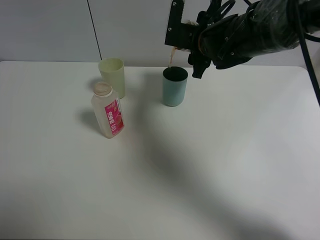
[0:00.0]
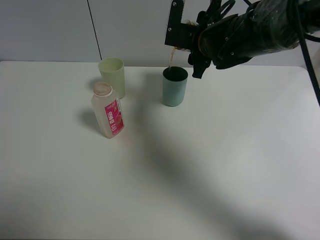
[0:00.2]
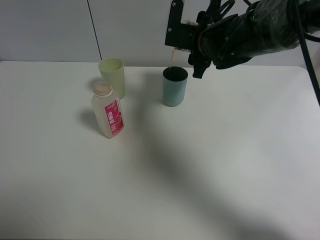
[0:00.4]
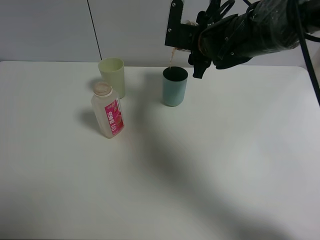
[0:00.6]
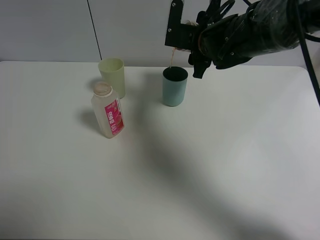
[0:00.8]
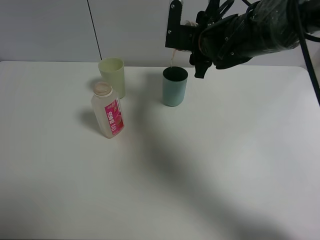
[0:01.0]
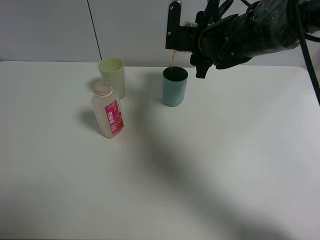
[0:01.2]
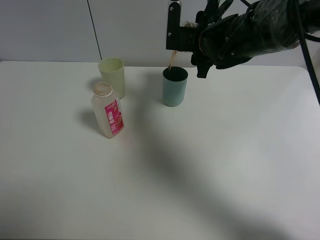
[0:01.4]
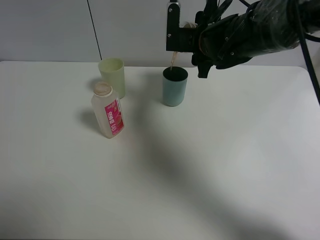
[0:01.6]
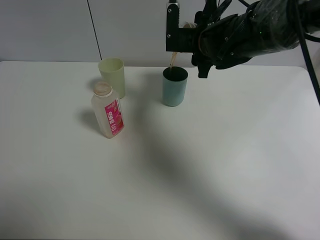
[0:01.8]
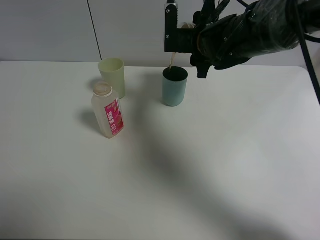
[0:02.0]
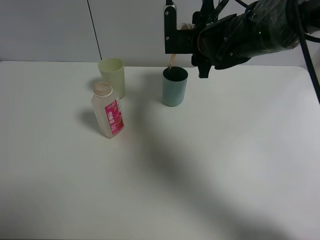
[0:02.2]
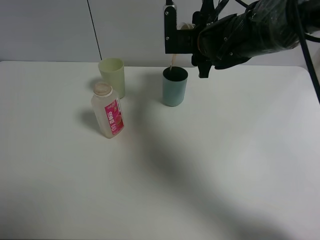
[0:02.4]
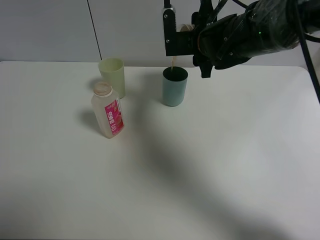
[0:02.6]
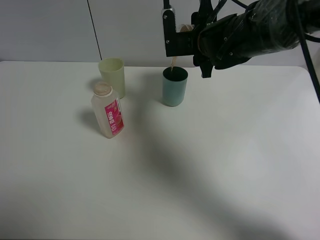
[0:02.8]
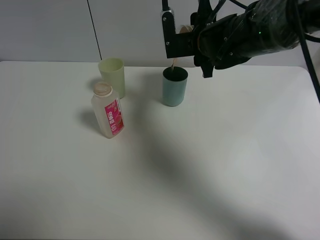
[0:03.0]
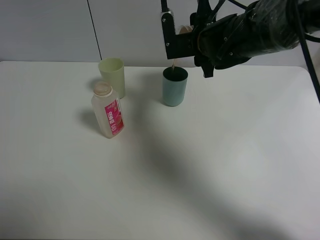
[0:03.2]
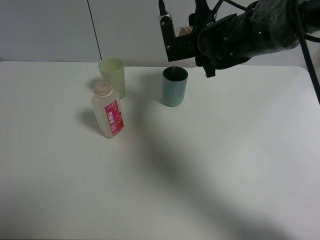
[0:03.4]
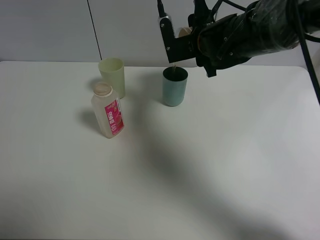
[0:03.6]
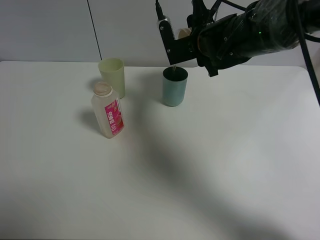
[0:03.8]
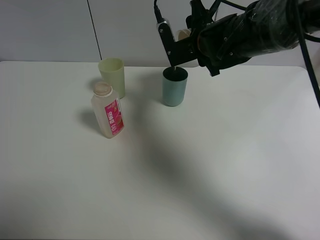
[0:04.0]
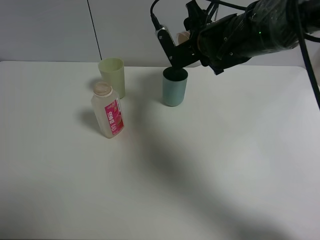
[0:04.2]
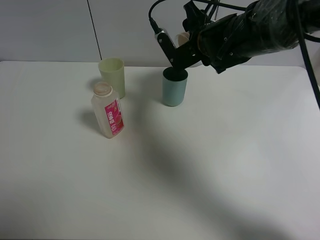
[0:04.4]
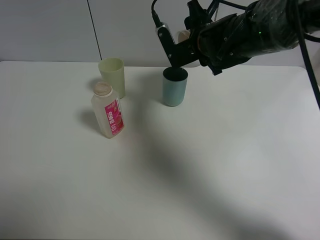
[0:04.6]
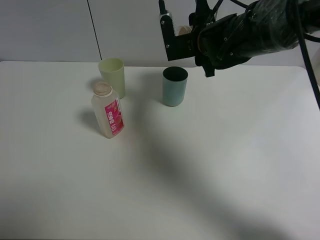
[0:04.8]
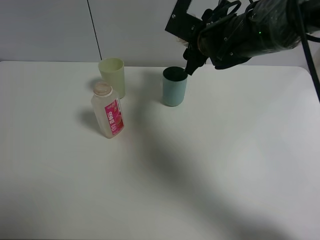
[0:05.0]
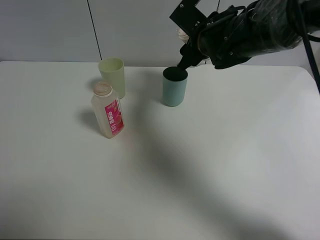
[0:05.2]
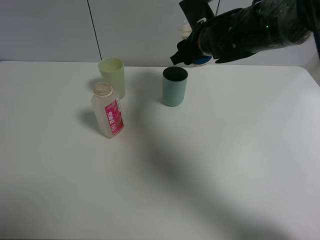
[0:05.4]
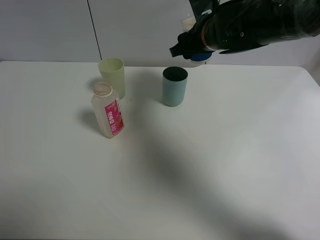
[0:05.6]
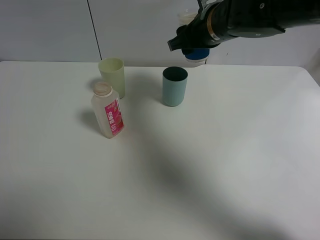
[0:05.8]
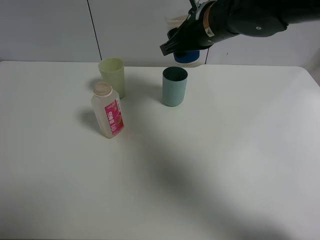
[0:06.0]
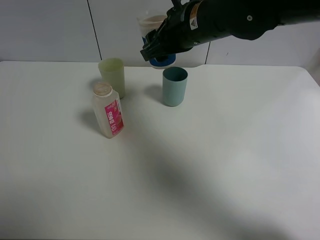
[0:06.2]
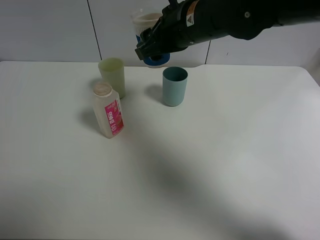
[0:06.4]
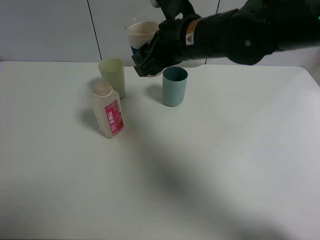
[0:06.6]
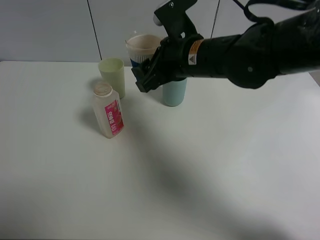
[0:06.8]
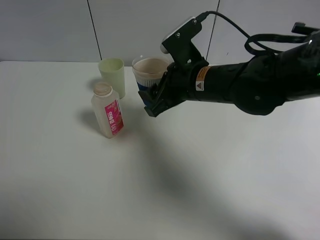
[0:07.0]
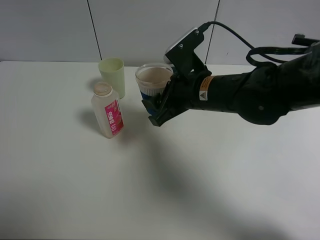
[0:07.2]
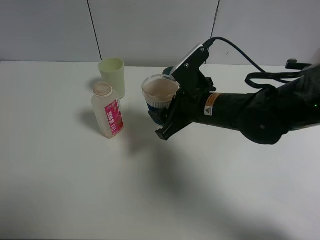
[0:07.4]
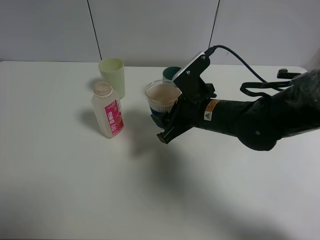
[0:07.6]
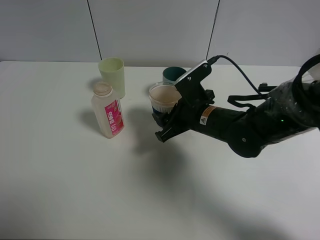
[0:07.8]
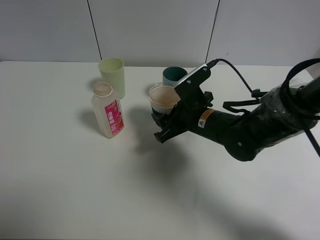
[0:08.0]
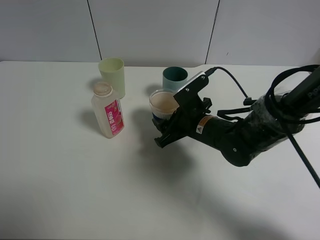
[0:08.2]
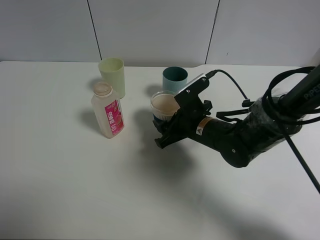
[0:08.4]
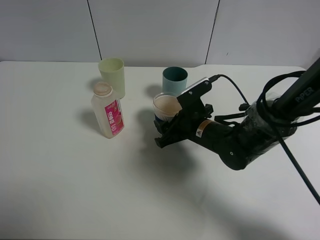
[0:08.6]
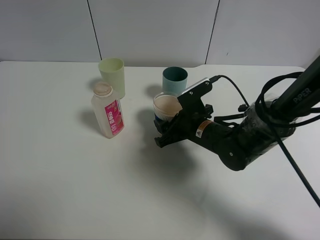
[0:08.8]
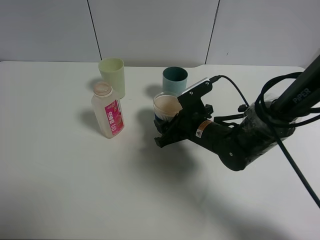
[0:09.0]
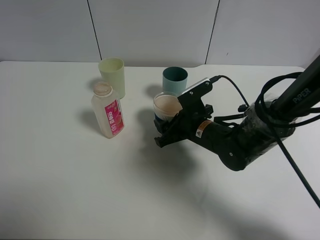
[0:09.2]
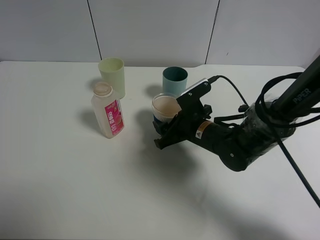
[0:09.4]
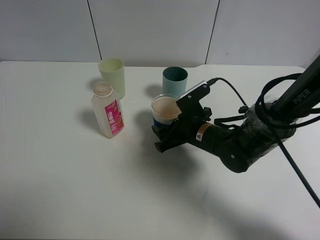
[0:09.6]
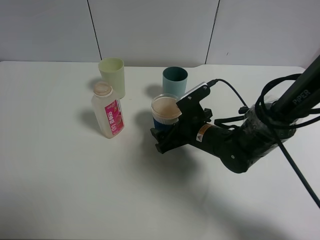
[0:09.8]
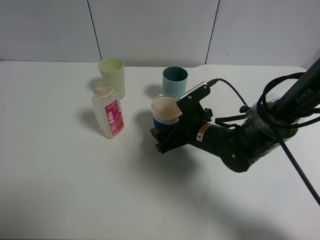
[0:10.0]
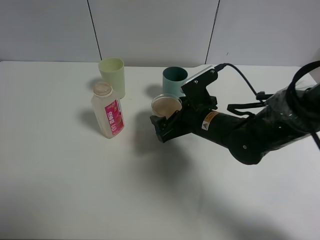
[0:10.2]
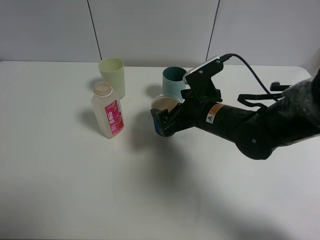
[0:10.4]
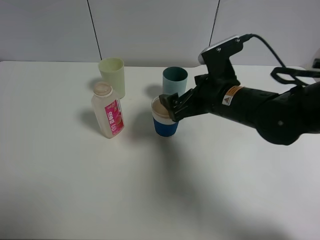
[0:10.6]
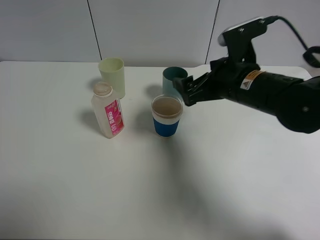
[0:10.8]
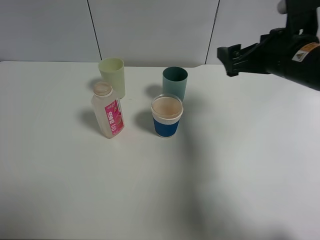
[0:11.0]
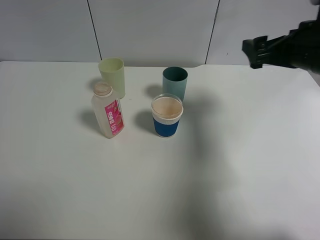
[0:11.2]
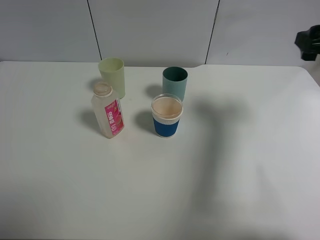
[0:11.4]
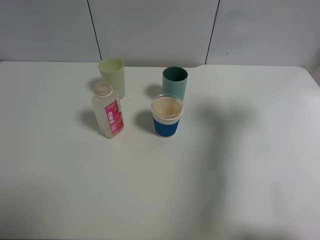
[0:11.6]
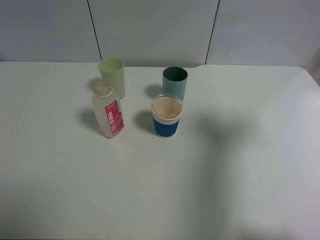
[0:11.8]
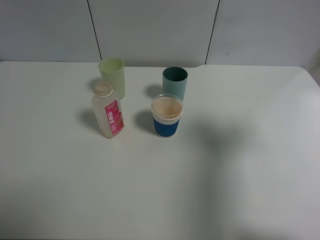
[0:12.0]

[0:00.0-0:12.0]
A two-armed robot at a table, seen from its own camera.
Task of the whole recording: use a clamp to hold the bottle of the drink, pour the beverage into a random cup, then clamp the cup containing the drink and pour the drink into another random cup.
0.0 to 3.0 s: The grippers stay close to where they were, moving slightly.
4.4 to 6.0 s: The right gripper goes roughly 5 cm upward.
6.0 to 7.6 s: The right gripper goes roughly 15 cm downward and backward.
7.6 to 9.0 s: The right gripper heads downward, covering about 5 cm.
9.0 to 10.4 s: The right gripper travels upward by approximately 5 cm, and opens its fingers.
10.4 to 12.0 s: The right gripper heads to the right, upward and backward, covering about 30 cm.

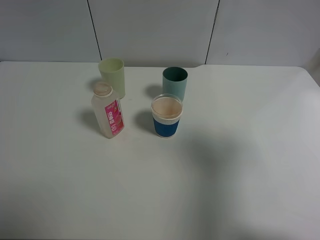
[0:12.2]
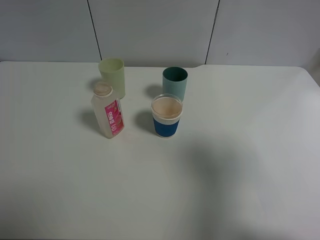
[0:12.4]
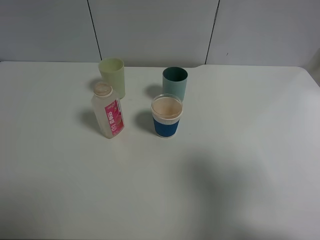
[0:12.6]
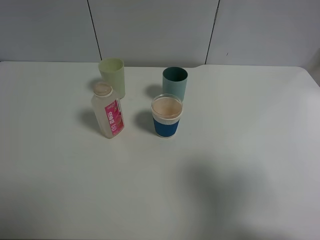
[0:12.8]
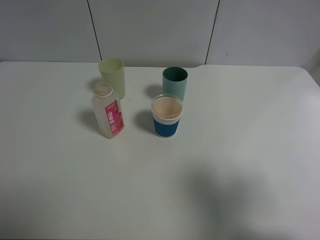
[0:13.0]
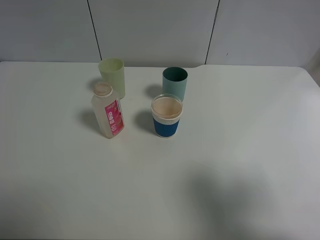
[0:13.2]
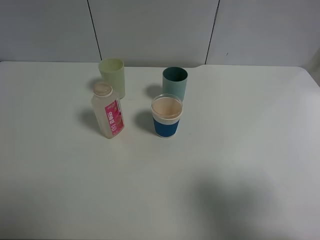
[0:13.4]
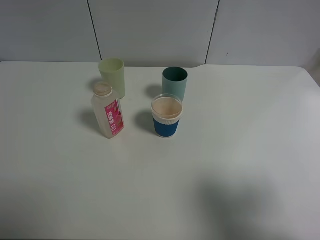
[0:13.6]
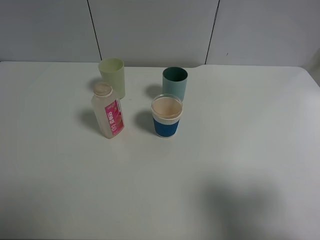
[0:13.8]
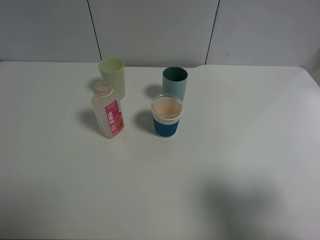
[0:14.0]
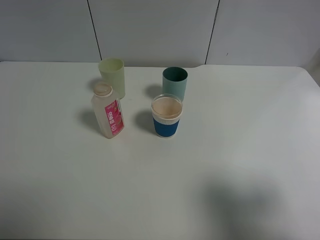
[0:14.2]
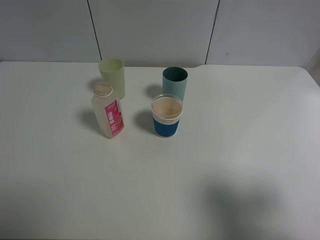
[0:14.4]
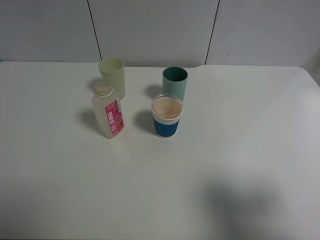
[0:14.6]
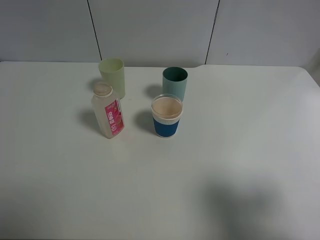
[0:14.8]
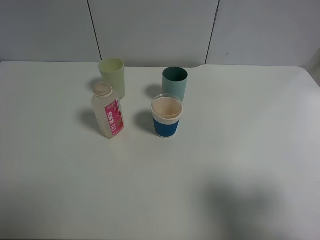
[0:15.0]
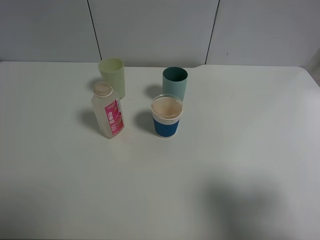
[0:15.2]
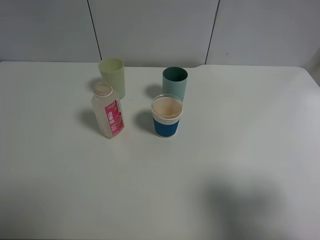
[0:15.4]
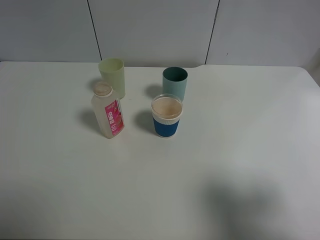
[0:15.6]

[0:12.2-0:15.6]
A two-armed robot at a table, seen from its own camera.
Task of the whole recording: use a clamp to hold the bottle of the drink, pour the beverage into a random cup, then clamp the cup containing the drink and pour the drink into another random cup.
12.2 to 13.8 s: The right gripper travels backward and downward by about 10 cm.
13.8 to 15.6 s: Both grippers stay put.

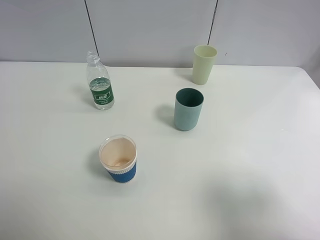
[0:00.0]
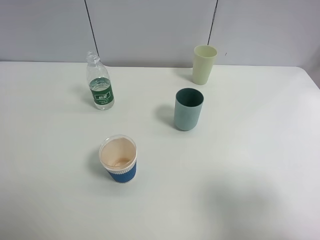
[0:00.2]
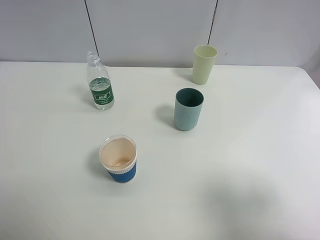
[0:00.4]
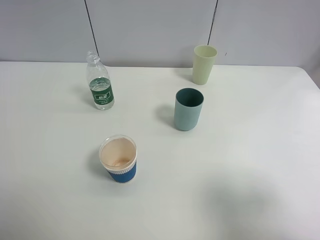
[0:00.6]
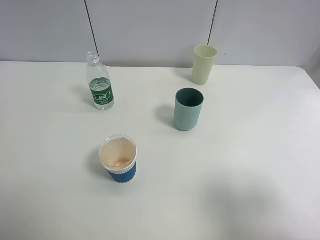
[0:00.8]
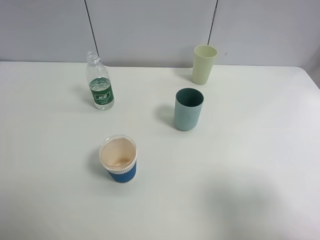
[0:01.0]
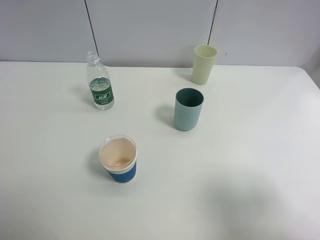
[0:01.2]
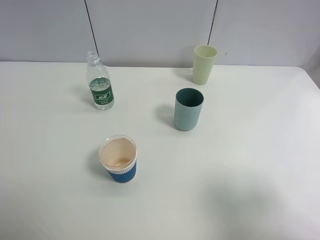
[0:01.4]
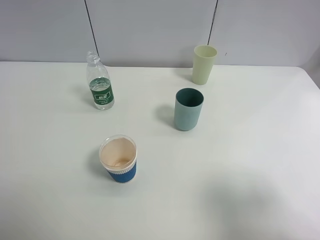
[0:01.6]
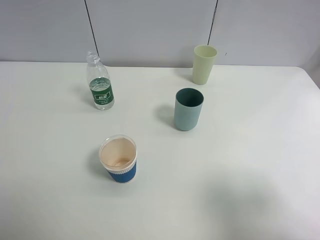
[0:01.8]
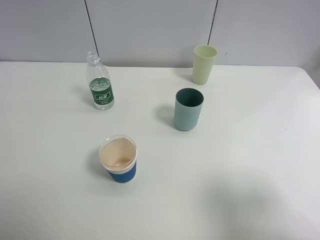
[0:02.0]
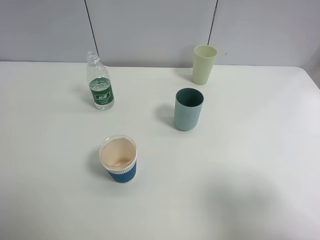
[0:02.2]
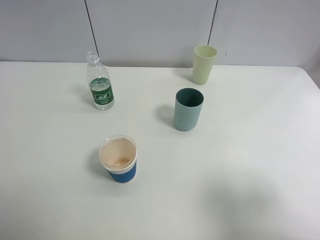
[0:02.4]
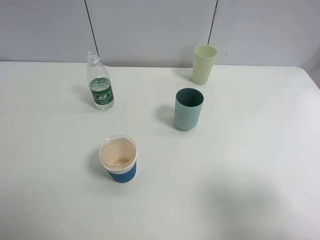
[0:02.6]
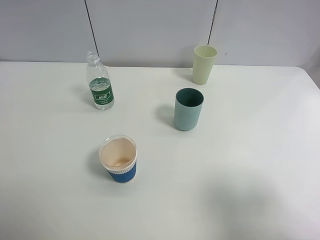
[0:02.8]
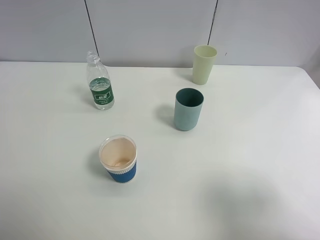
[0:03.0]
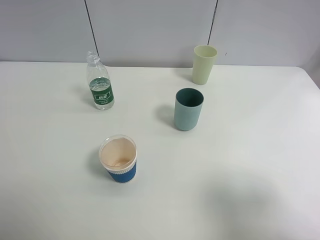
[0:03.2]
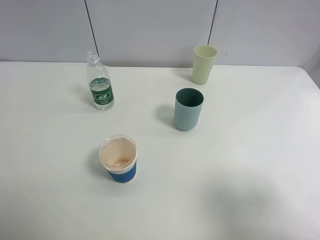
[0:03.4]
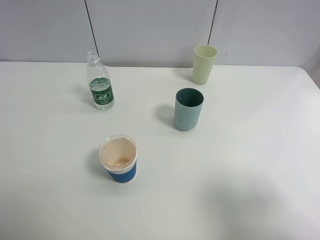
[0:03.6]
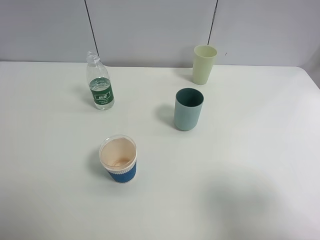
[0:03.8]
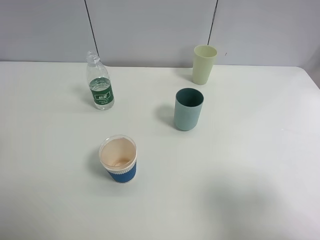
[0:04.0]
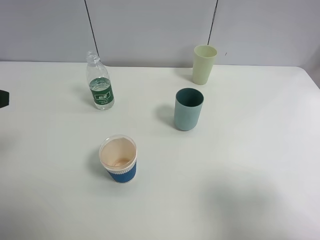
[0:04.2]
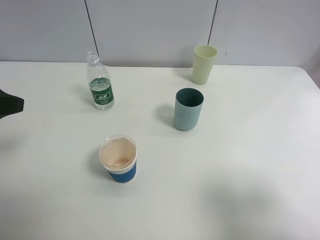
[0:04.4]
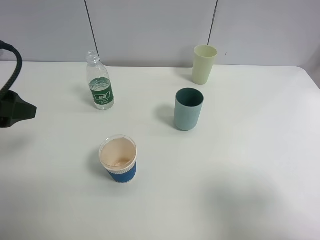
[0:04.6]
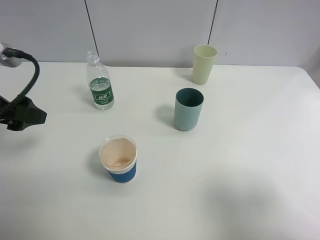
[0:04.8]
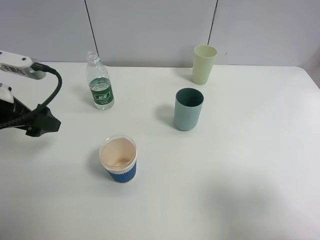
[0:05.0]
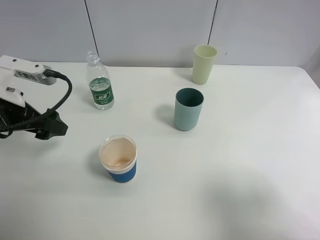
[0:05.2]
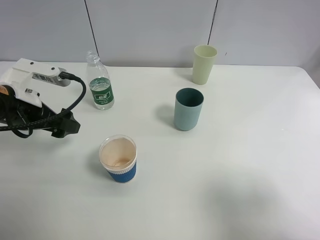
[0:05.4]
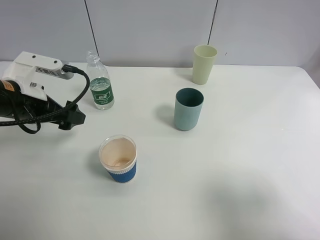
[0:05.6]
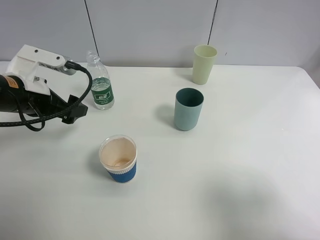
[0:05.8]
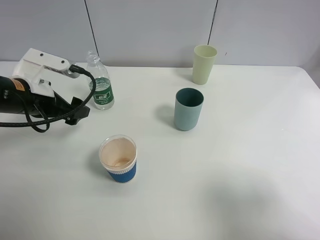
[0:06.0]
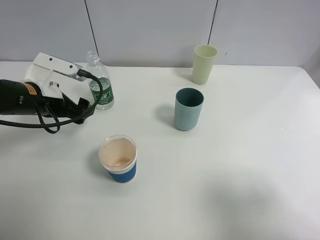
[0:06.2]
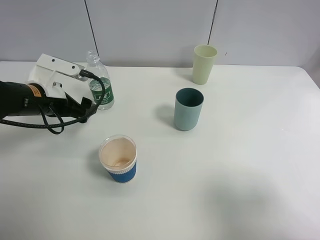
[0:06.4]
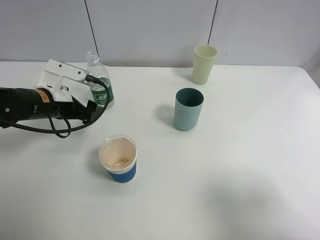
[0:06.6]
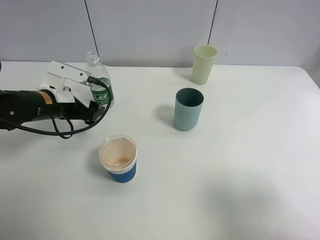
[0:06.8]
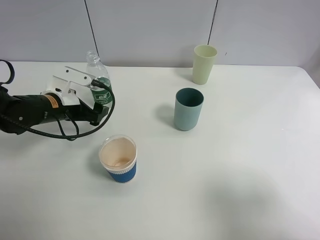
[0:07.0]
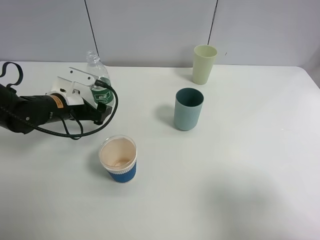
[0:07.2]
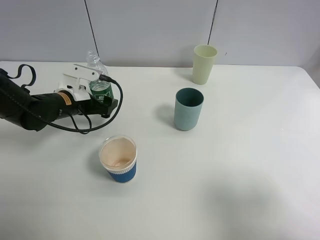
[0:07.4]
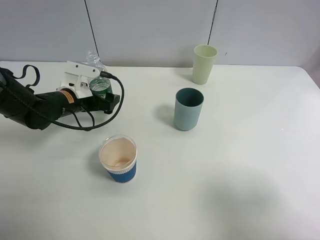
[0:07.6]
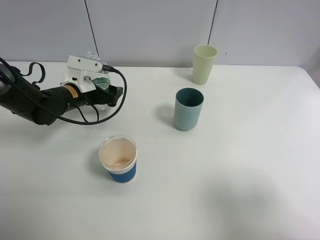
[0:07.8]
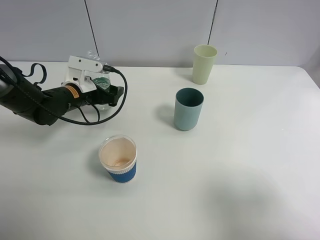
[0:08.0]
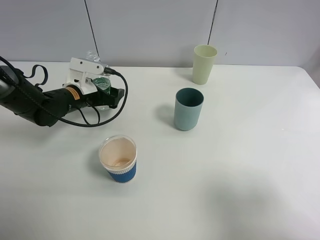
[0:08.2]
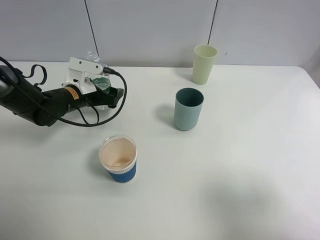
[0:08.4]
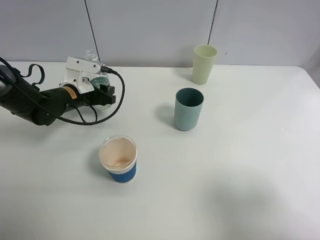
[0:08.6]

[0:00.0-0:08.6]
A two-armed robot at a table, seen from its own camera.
Task of the whole recording: use a clamp to hold the bottle of the drink, pour the beverage into a random cup, then clamp the cup containing the drink and pour the drink into another random cup.
0.0 to 2.8 s: Both grippers stay about where they are.
2.8 to 4.4 s: The left gripper goes some 15 cm forward.
4.4 to 5.8 s: The left gripper goes about 15 cm forward, downward and to the right.
5.8 to 7.2 s: The left gripper moves downward and forward, roughly 10 cm.
7.2 to 8.6 s: The left gripper closes up.
